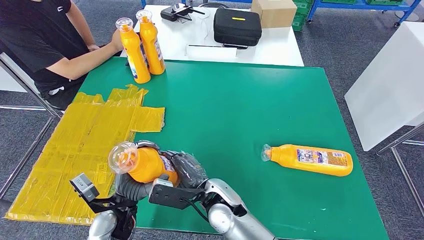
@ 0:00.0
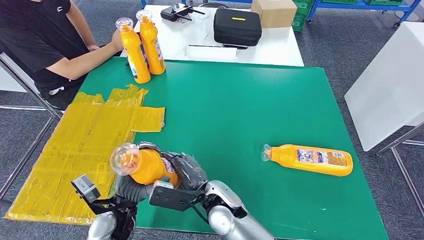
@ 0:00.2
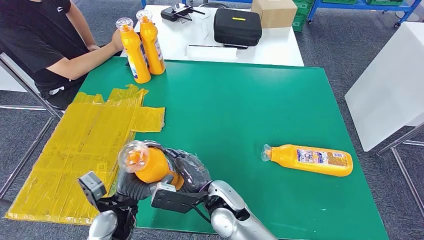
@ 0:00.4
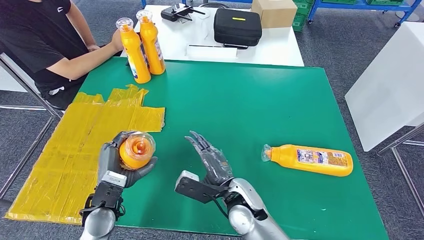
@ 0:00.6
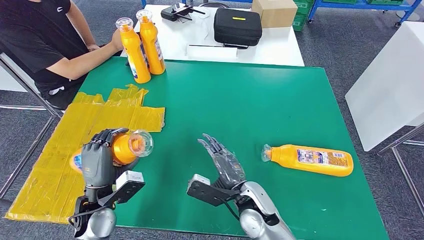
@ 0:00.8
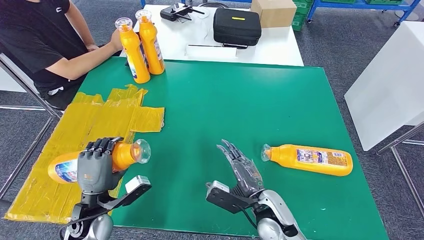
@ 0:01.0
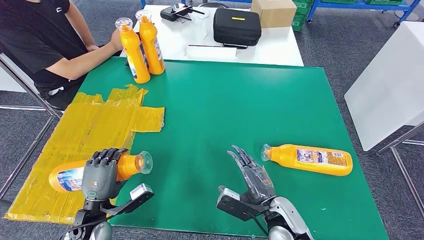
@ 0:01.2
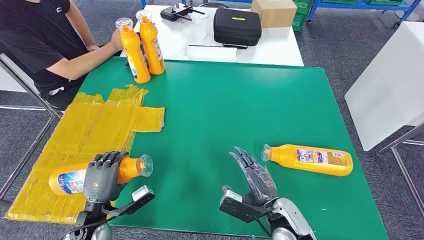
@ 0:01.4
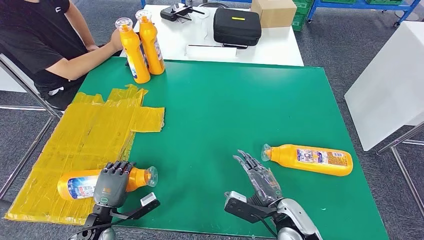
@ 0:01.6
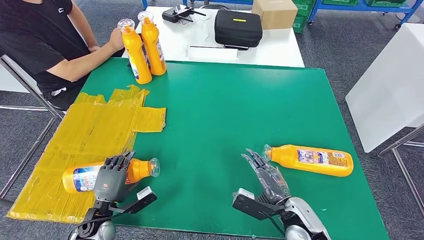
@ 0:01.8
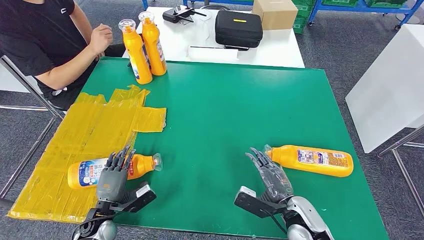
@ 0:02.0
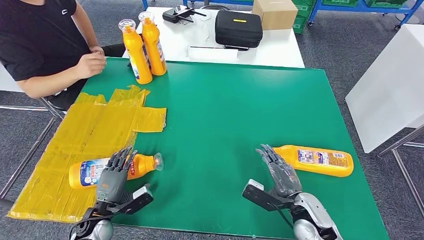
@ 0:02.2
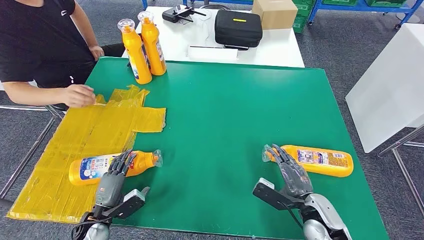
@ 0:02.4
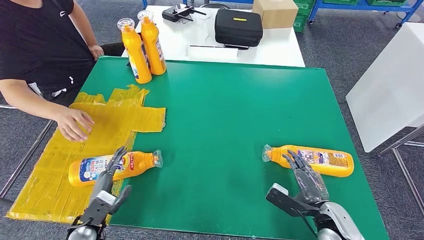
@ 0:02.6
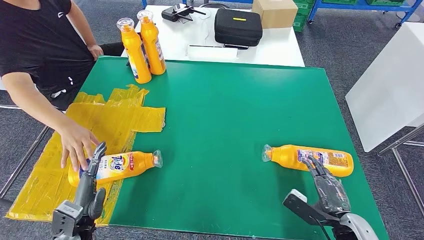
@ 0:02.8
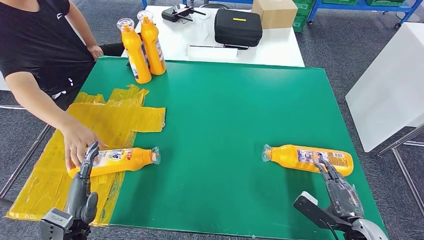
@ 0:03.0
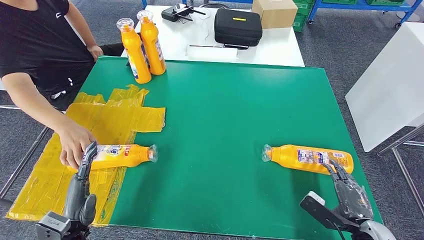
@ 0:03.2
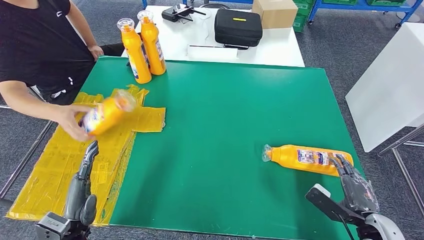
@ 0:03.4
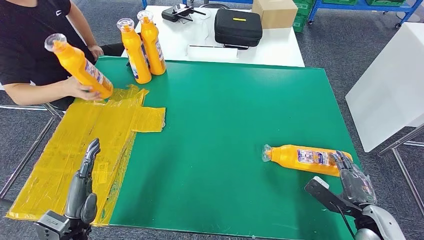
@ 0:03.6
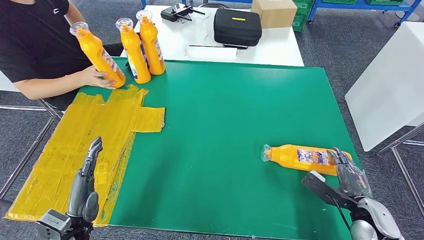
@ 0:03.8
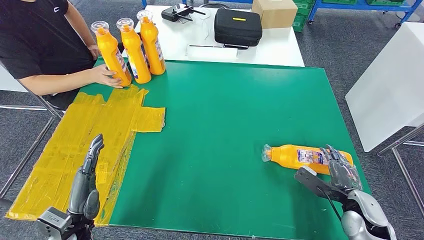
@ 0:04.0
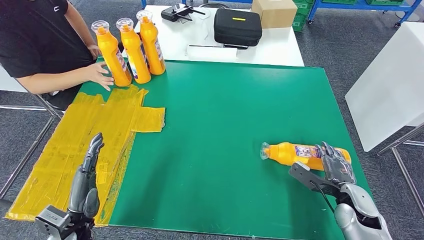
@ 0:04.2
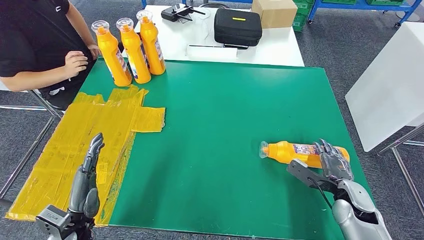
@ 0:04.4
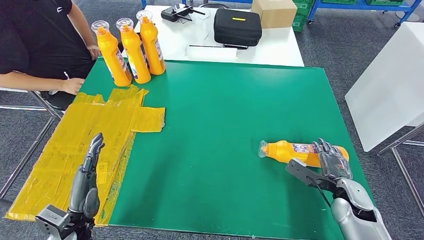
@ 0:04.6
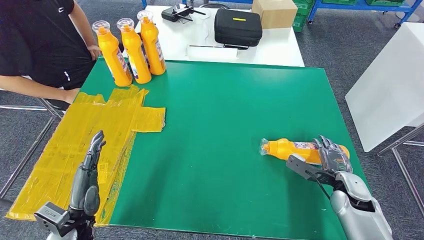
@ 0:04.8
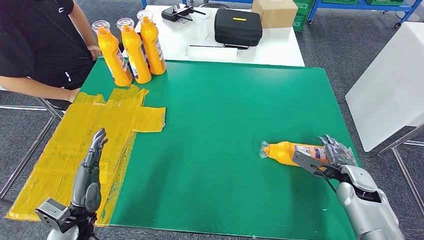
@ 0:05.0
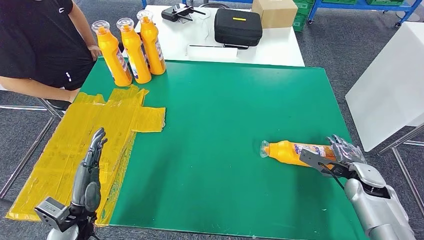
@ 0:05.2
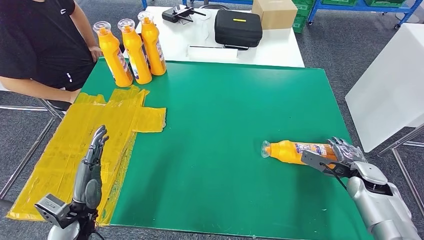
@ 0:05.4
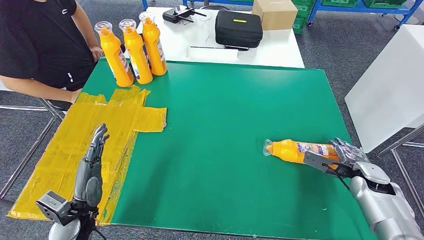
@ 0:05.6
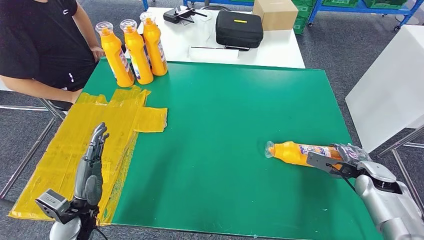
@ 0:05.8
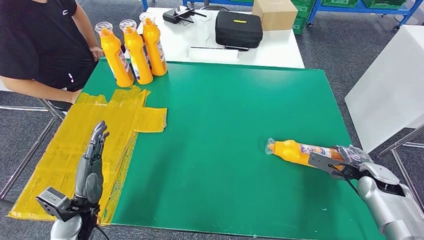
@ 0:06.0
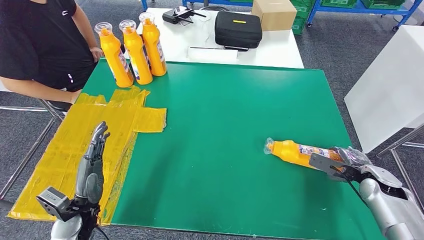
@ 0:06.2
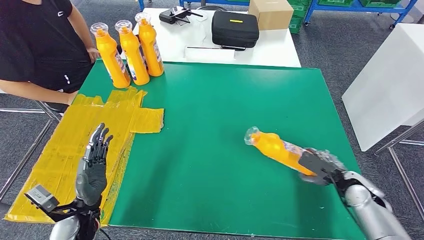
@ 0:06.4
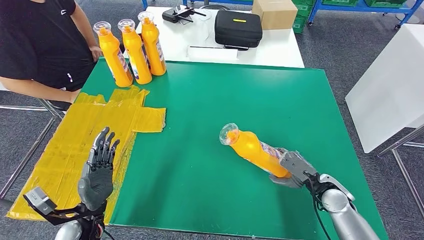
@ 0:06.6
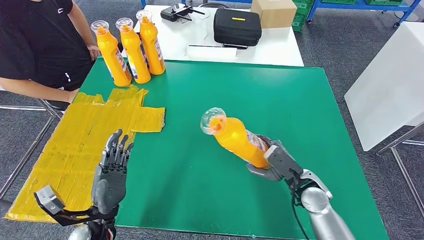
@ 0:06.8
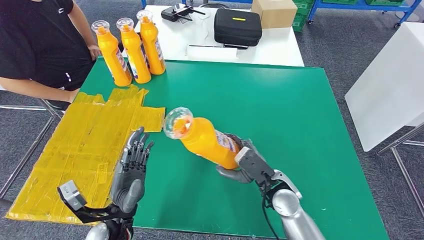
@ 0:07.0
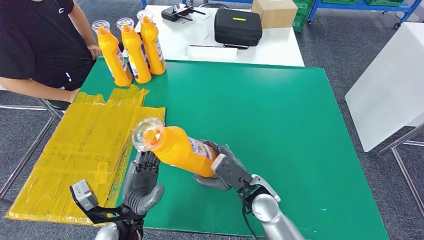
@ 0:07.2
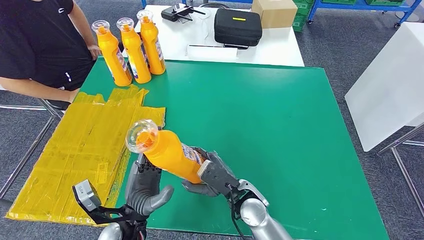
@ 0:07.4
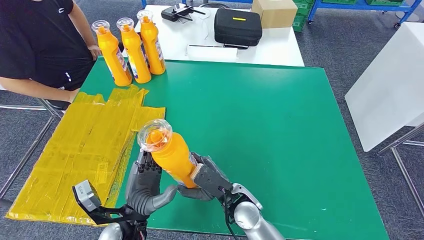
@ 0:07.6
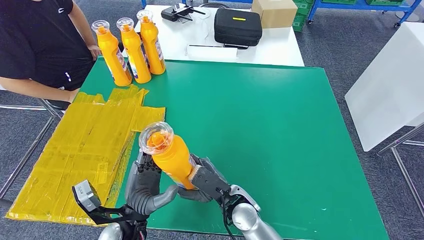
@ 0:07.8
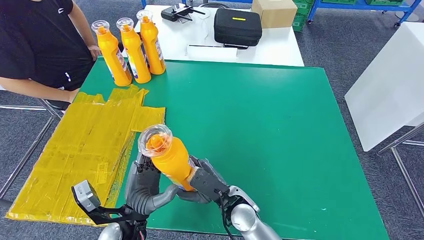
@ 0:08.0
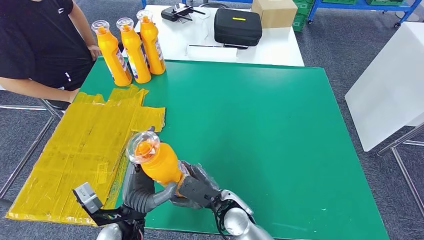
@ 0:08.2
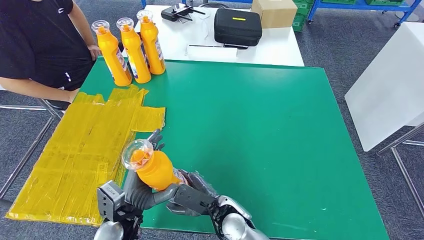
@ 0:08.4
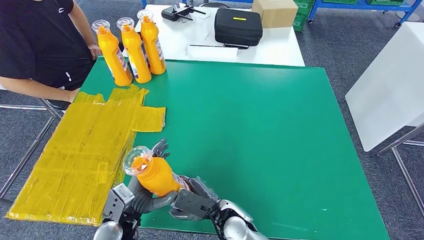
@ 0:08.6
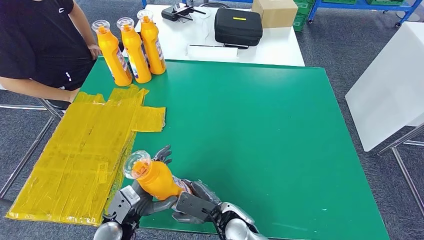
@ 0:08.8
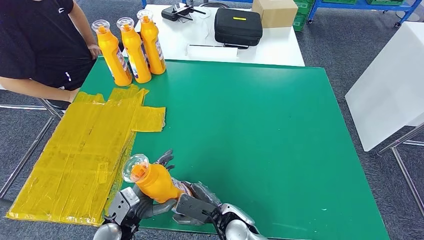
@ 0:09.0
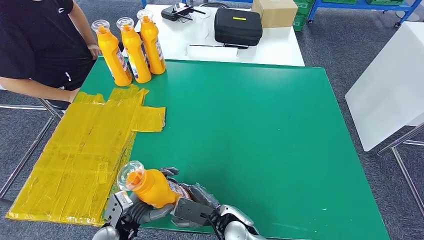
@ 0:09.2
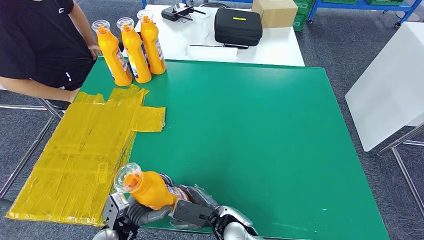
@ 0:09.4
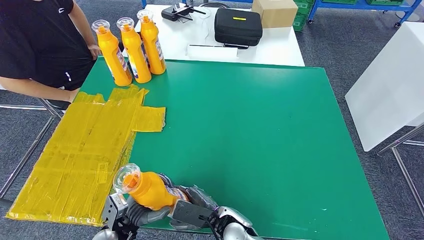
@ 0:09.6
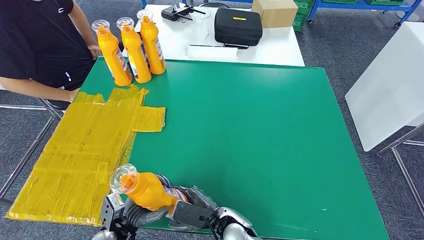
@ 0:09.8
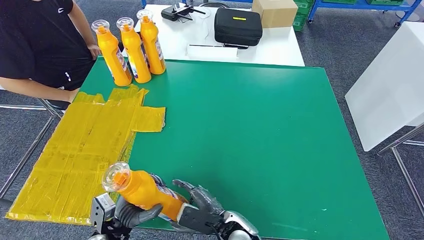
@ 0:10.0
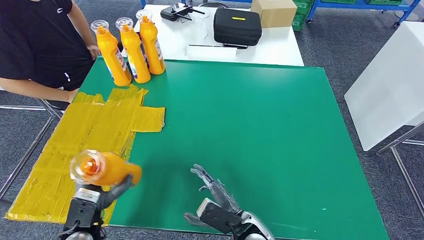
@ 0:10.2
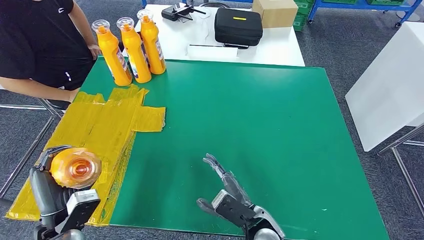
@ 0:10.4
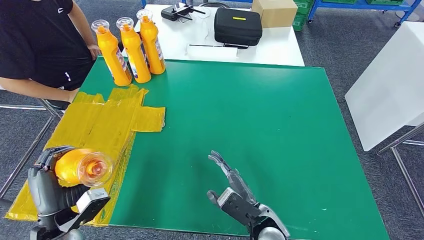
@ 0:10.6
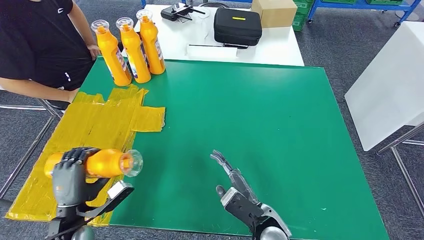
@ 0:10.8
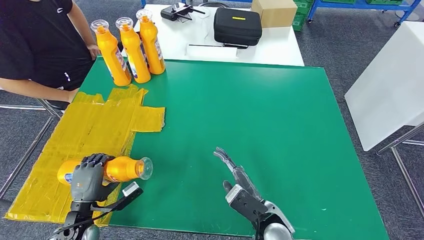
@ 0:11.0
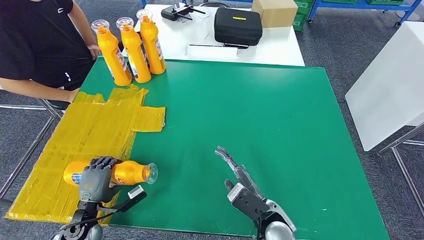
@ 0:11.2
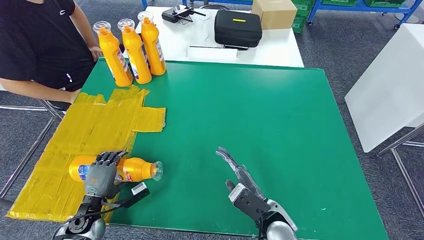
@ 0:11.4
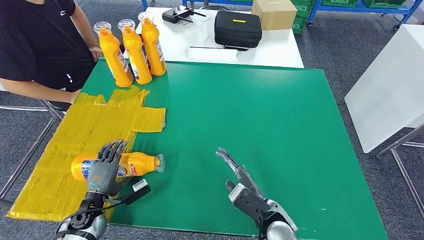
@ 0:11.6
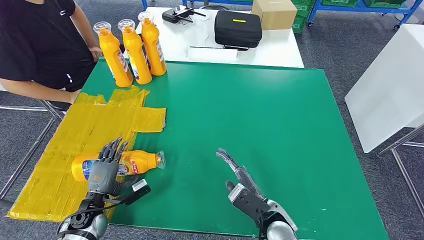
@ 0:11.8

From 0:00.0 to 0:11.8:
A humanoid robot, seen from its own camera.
Step, from 0:00.0 to 0:02.4: Flip the bottle to face forward.
Step, from 0:02.6 to 0:07.8: Pick up the bottle from the table.
Step, from 0:08.2 to 0:11.6: Flip the bottle to face forward.
From 0:00.0 to 0:01.4: The left hand goes some 10 cm to the left. Meanwhile the right hand heads to the right, covering about 15 cm.
From 0:03.0 to 0:04.4: The right hand moves forward, roughly 10 cm.
From 0:07.4 to 0:08.8: Both hands travel together downward, roughly 5 cm.
From 0:08.8 to 0:10.4: The right hand goes about 5 cm to the right. The left hand is displaced to the left and upward by about 10 cm.
From 0:10.4 to 0:11.8: The left hand heads downward and forward, covering approximately 15 cm.
